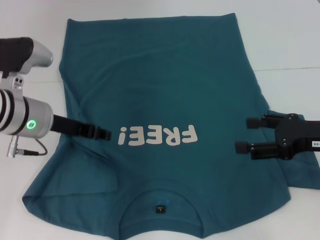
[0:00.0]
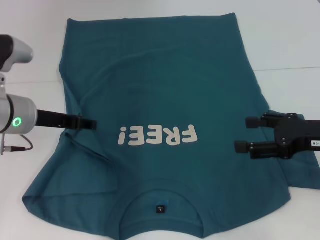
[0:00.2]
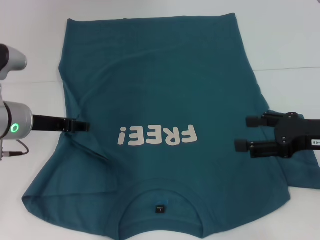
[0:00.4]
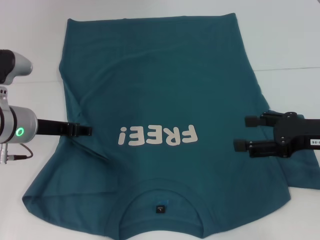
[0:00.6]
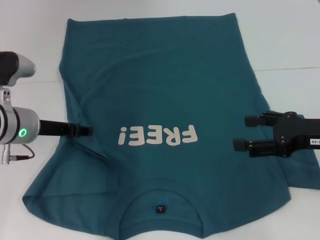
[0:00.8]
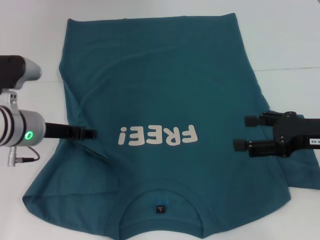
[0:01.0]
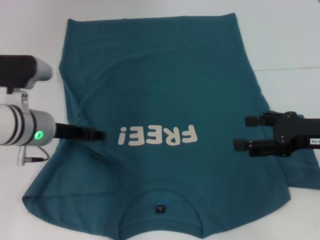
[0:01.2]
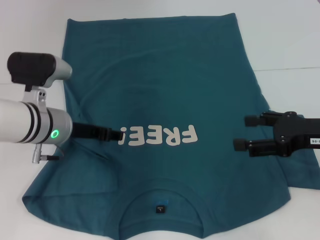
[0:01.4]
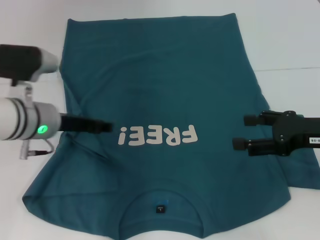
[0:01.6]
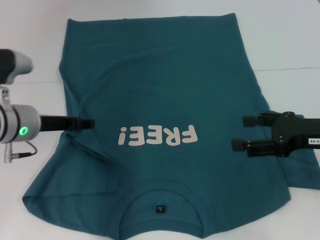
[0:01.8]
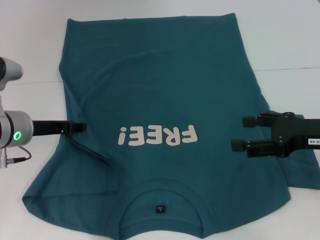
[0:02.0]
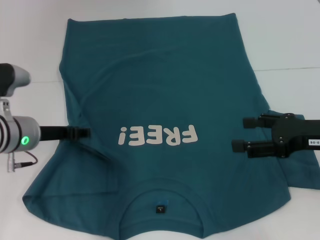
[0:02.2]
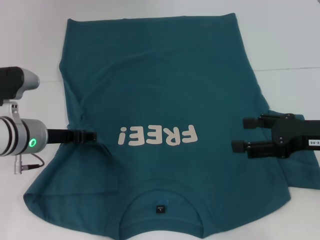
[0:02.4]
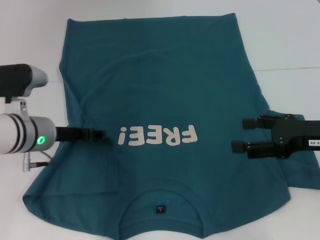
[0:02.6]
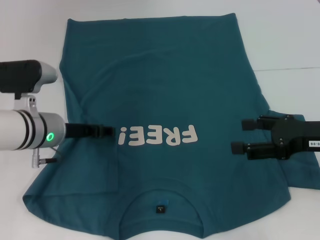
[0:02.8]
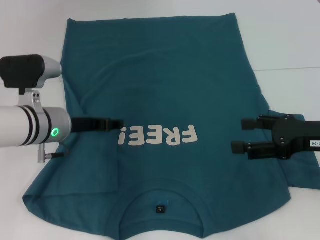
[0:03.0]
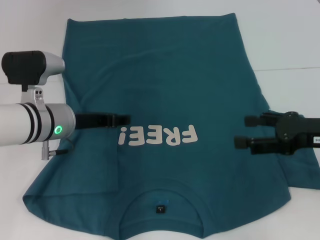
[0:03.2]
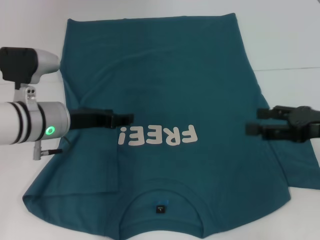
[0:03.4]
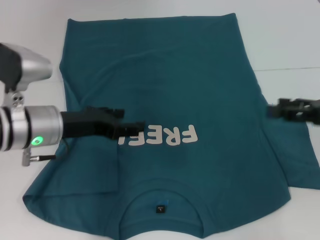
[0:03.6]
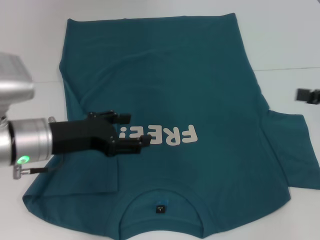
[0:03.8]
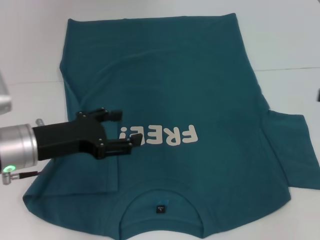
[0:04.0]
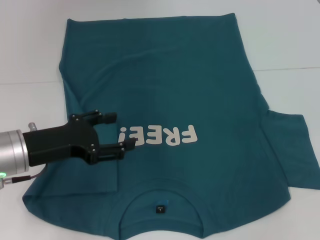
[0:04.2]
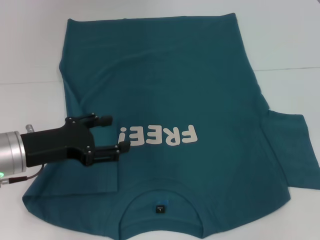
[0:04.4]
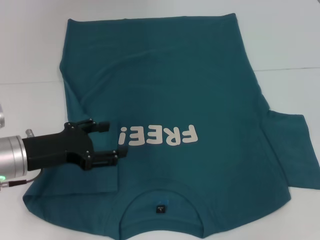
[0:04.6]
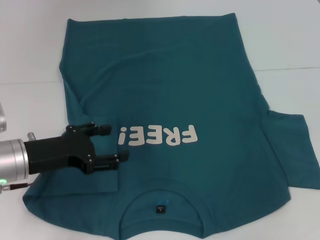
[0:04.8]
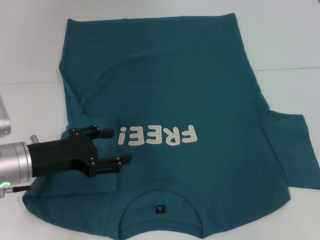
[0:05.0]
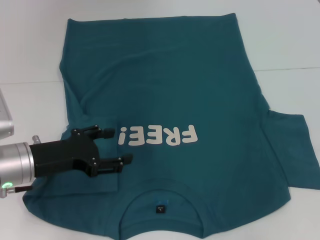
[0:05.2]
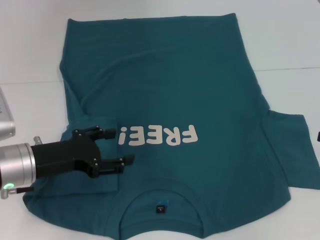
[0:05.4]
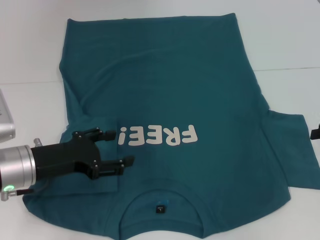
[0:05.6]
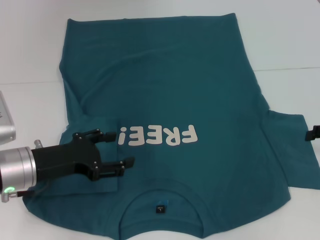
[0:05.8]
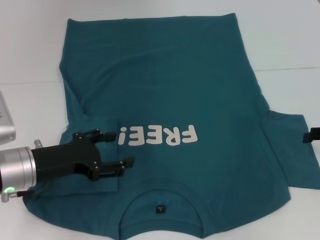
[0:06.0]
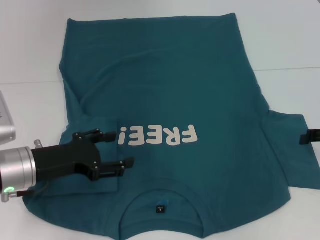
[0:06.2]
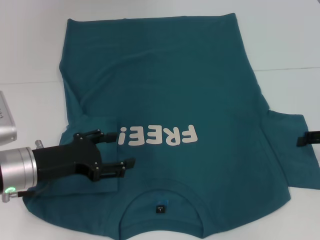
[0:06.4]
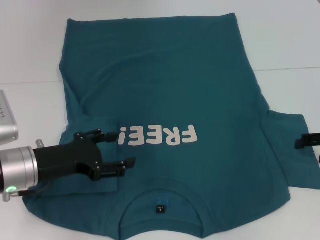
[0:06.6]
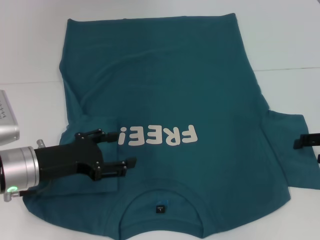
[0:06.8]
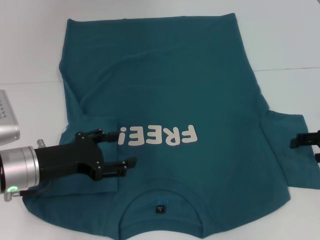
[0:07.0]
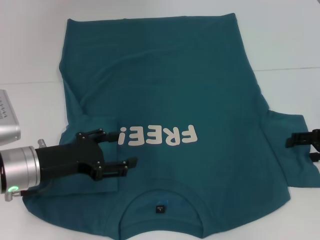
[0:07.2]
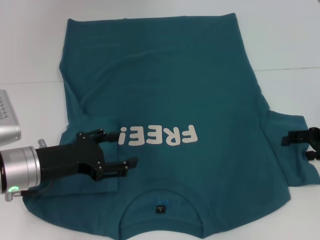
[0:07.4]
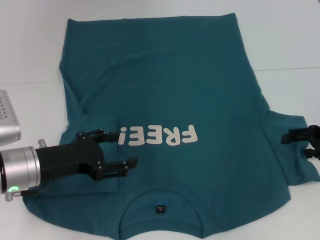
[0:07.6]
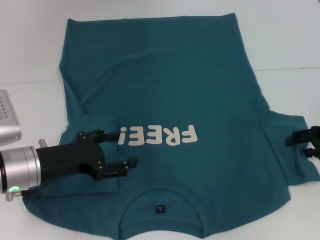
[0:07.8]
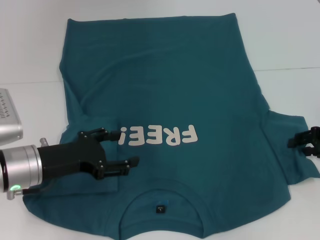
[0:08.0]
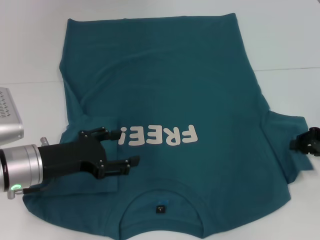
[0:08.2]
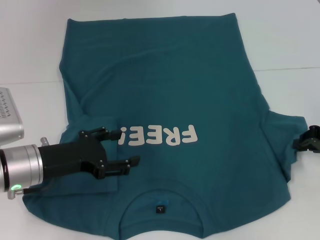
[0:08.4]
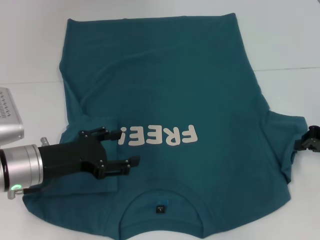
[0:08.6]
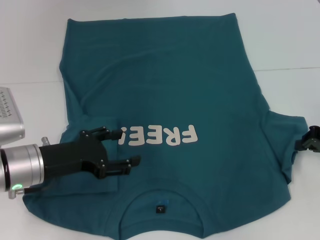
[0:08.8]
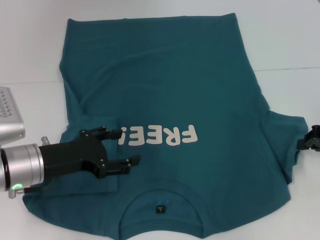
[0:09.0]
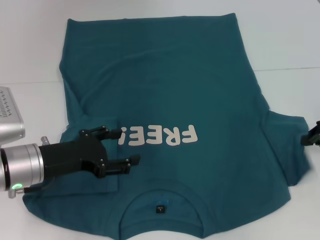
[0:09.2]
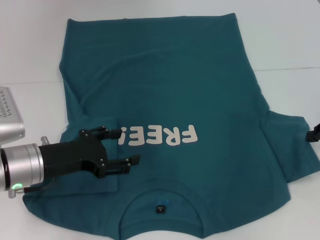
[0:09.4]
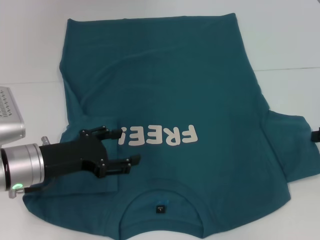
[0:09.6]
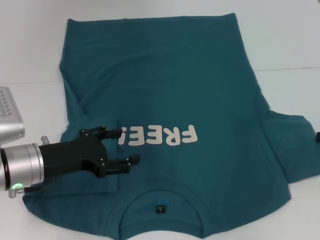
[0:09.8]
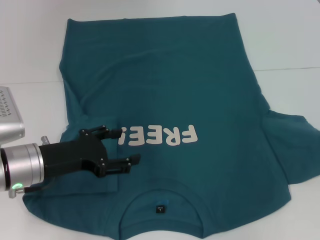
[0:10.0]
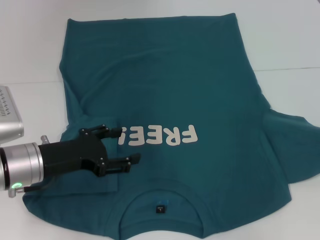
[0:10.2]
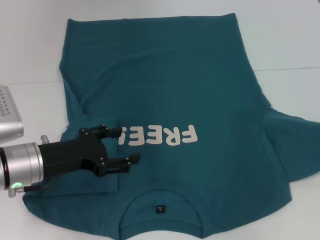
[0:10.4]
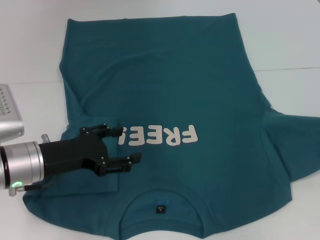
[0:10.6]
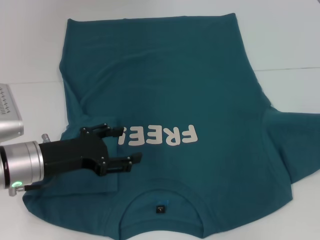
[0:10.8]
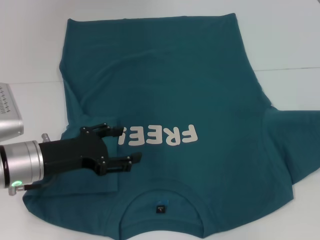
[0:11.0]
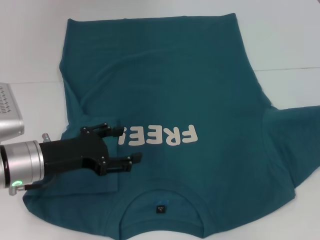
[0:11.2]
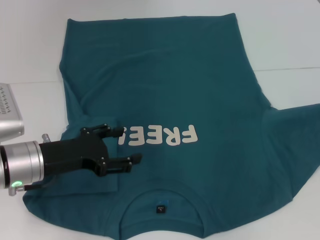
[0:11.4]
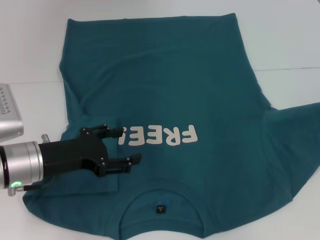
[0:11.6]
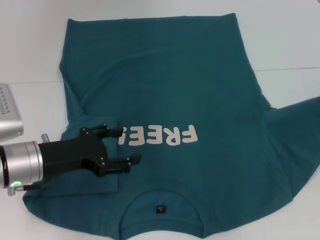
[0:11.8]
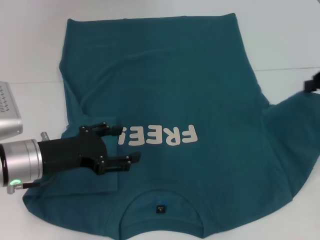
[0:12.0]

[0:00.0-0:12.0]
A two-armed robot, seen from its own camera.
Step, 0:00.0 to 0:03.2: Fold the bottom left sleeve with your left hand.
0:00.0 to 0:01.6: The left gripper opens its fingers.
0:01.6 to 0:03.0: There are only small adjustments of the grippers.
0:03.0 to 0:04.4: The left gripper is displaced backward and to the left by some 10 cm. Meanwhile the right gripper is displaced to the right by roughly 10 cm.
0:04.4 to 0:06.0: The right gripper heads downward, covering roughly 5 cm.
0:06.0 to 0:07.6: There are only small adjustments of the grippers.
0:07.6 to 0:09.0: The right gripper closes up.
0:09.0 to 0:10.4: The right gripper ends up some 5 cm from where it was.
0:10.4 to 0:12.0: The right gripper heads upward and to the left, covering roughly 10 cm.

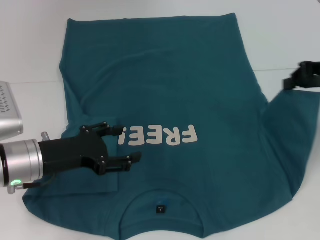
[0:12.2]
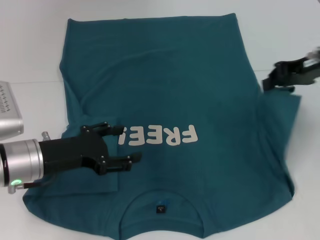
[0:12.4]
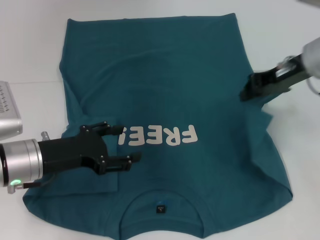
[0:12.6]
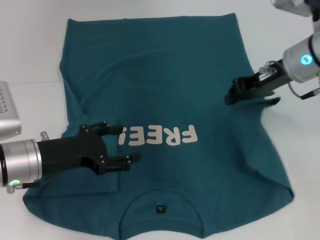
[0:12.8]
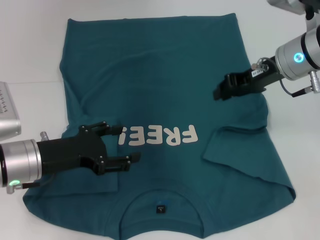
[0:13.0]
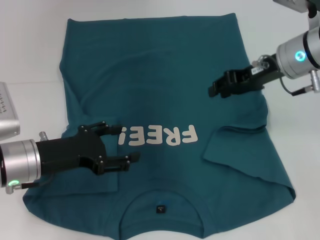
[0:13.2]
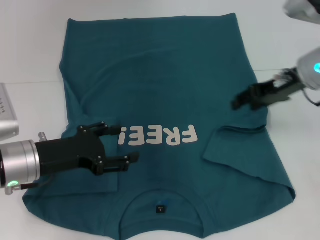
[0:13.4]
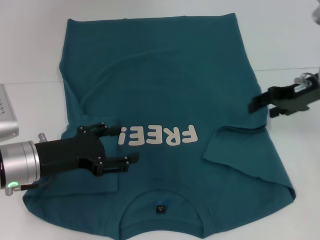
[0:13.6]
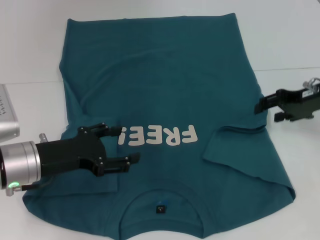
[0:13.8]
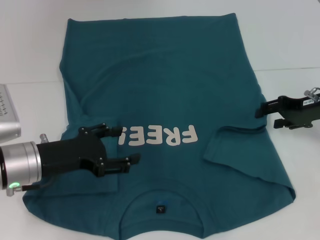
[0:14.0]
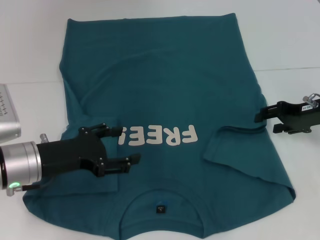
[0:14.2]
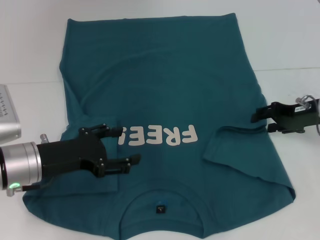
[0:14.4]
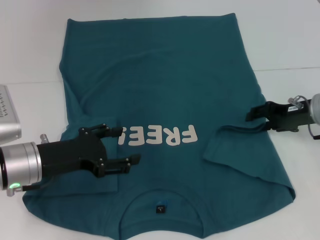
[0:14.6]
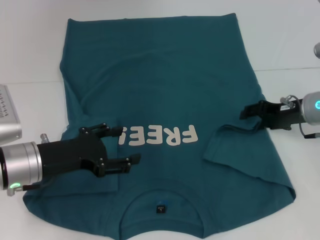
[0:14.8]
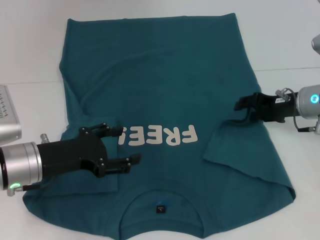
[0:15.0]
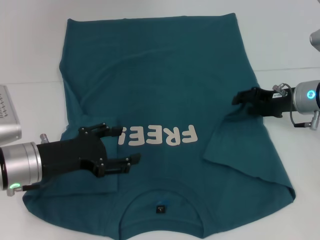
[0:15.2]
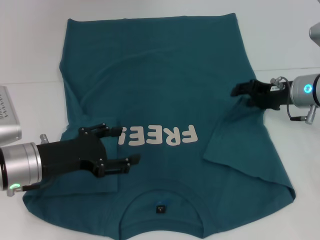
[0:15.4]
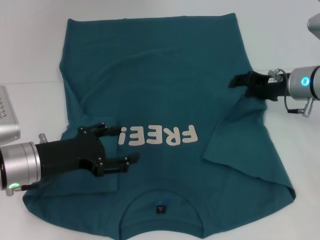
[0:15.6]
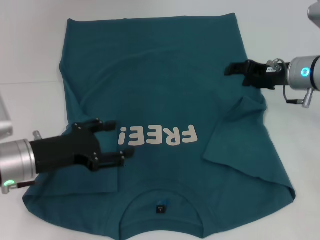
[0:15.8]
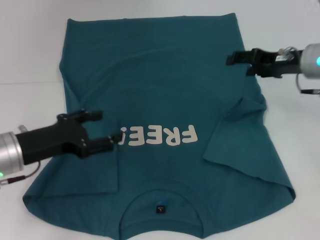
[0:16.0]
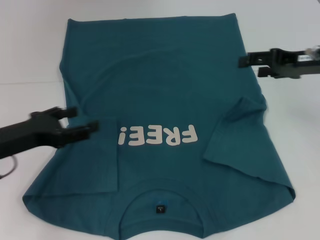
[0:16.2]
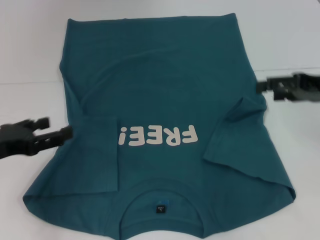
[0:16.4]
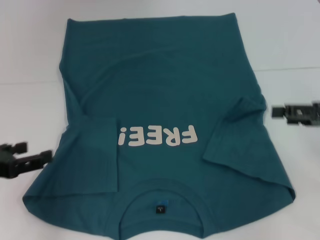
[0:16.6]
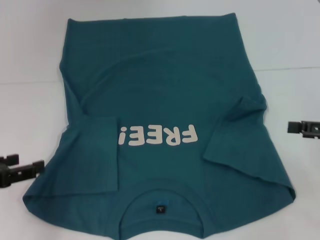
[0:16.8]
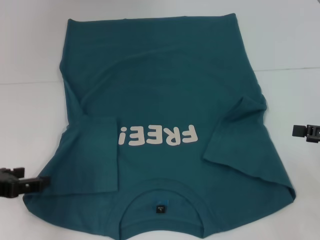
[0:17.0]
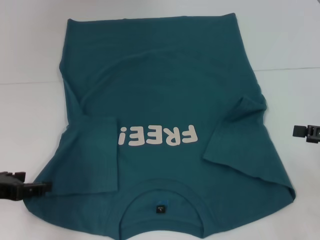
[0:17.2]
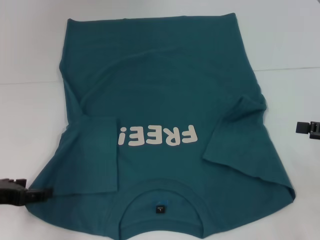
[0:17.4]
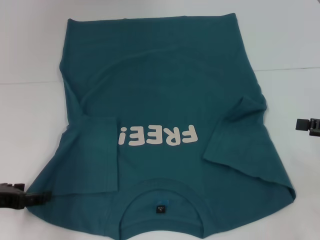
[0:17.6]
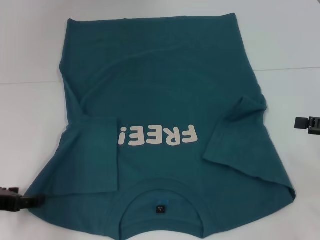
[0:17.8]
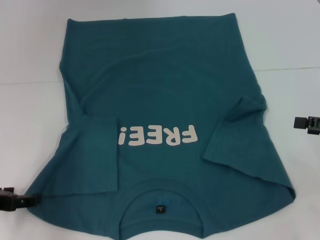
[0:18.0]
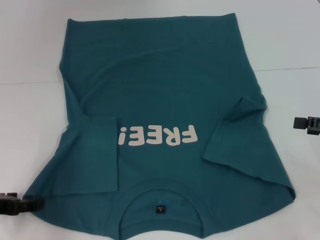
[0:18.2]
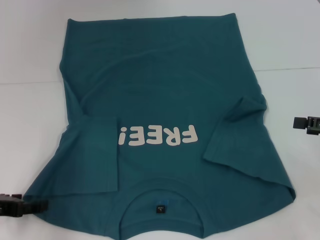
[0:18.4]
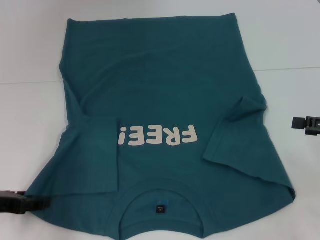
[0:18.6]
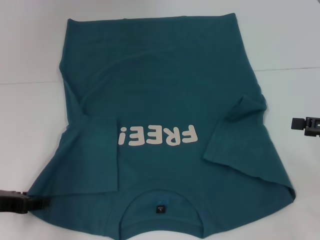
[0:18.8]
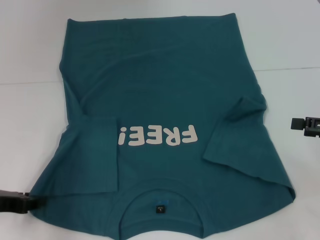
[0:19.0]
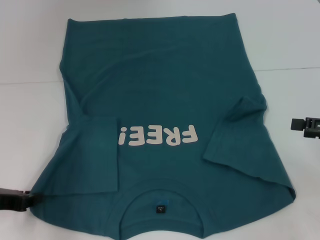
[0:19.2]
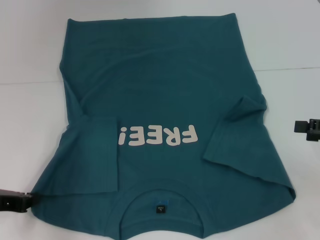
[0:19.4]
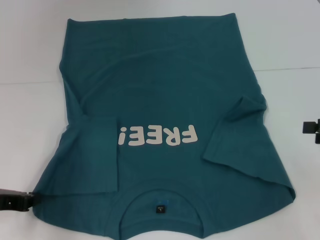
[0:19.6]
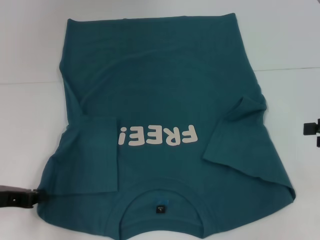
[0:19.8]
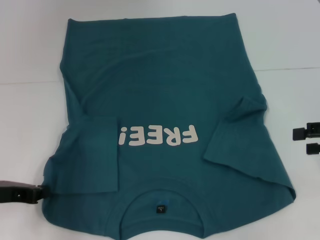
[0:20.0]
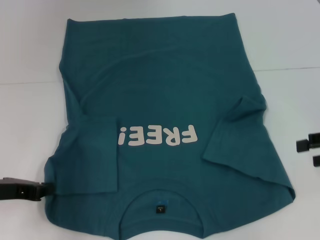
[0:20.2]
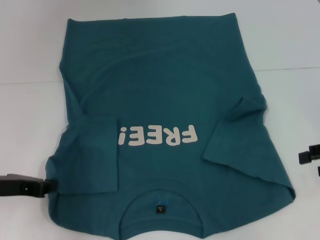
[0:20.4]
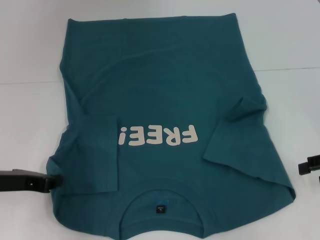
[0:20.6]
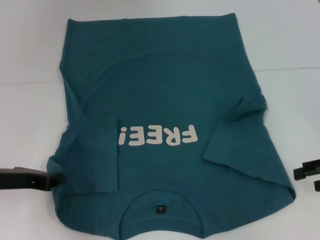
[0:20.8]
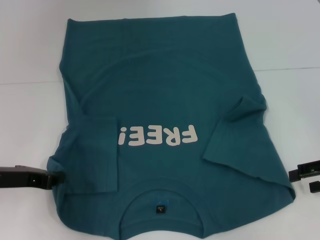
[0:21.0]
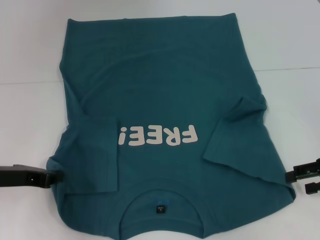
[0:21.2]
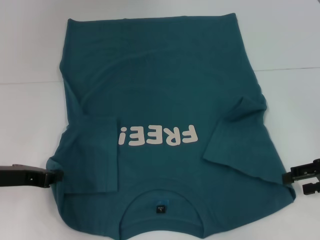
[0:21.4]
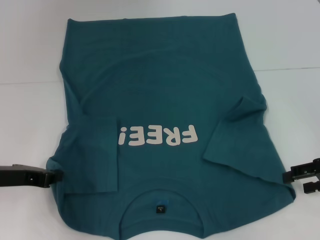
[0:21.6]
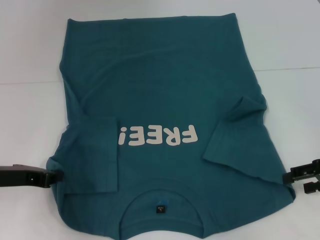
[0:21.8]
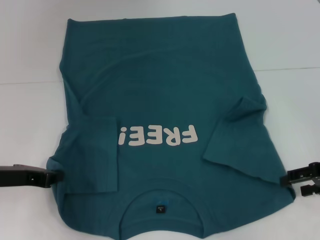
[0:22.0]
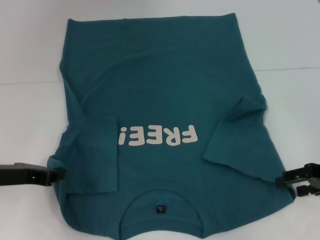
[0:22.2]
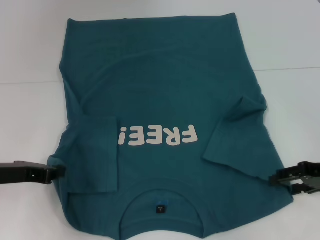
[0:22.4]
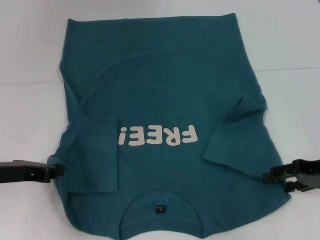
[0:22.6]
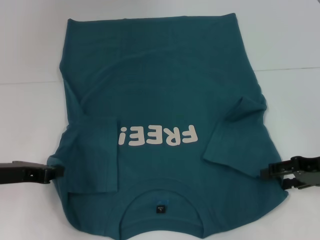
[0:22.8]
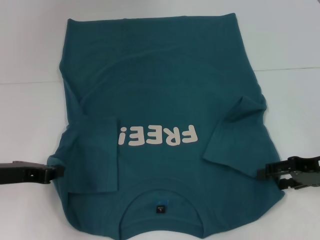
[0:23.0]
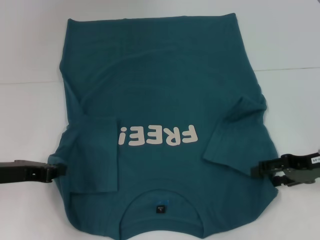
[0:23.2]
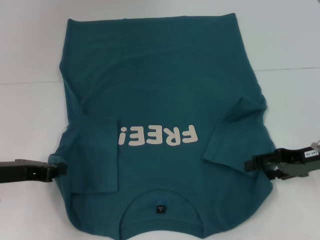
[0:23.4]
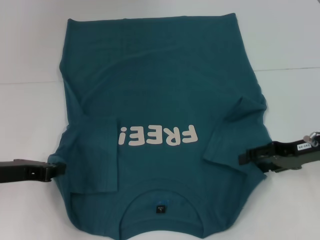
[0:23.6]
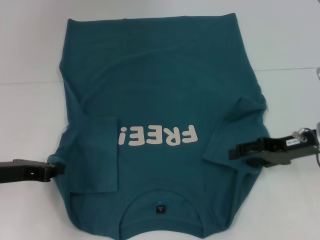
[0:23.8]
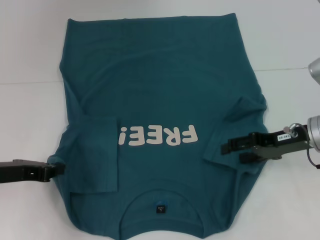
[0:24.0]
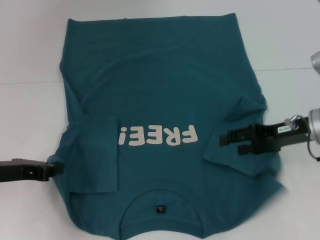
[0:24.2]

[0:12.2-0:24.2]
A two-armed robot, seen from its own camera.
Step, 0:12.2 to 0:15.8: Fold the bottom right sleeve to the right.
Step, 0:16.0 to 0:19.4: Grab the bottom left corner with your left hand.
0:12.2 to 0:13.8: The right gripper travels downward by roughly 5 cm, moves approximately 10 cm to the left and comes back, and opens.
0:13.8 to 0:15.2: The right gripper shifts by roughly 5 cm.
0:15.2 to 0:16.6: The right gripper travels backward, to the right and upward by roughly 15 cm. The left gripper travels to the left and backward by roughly 10 cm.
0:18.2 to 0:19.8: The left gripper closes up.
0:19.8 to 0:21.2: The right gripper moves some 5 cm.
0:21.2 to 0:22.6: There are only small adjustments of the grippers.
0:22.6 to 0:24.2: The right gripper shifts some 5 cm to the left.
